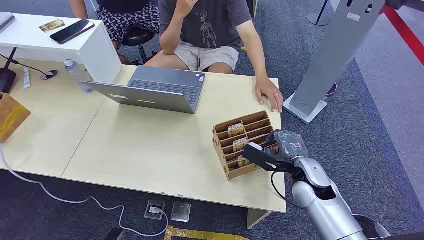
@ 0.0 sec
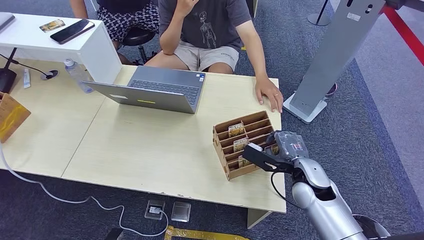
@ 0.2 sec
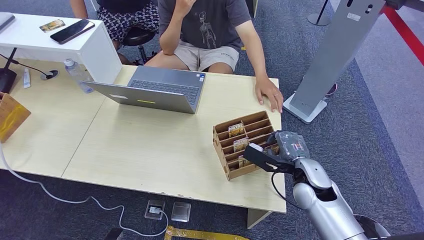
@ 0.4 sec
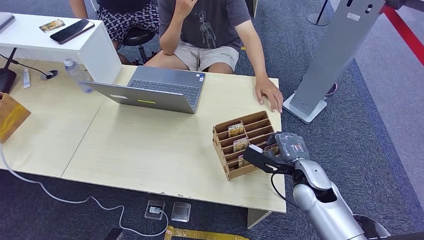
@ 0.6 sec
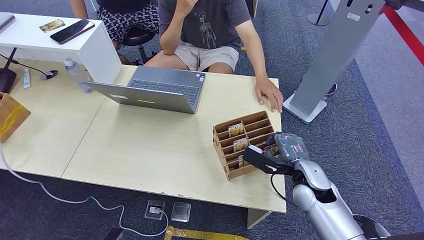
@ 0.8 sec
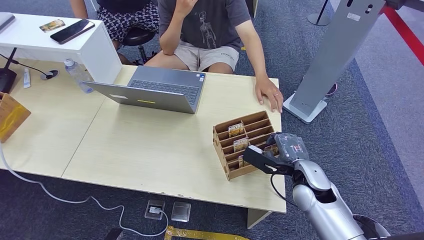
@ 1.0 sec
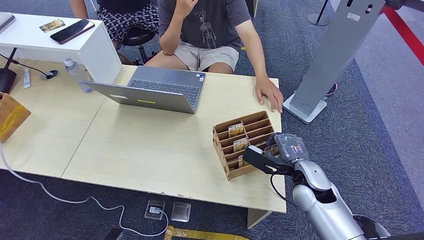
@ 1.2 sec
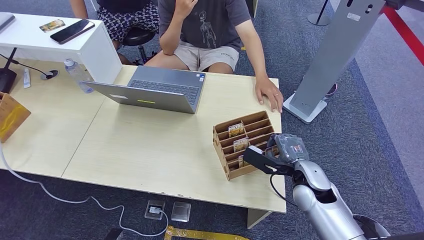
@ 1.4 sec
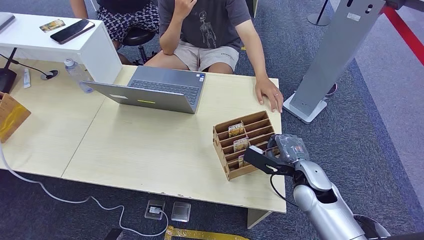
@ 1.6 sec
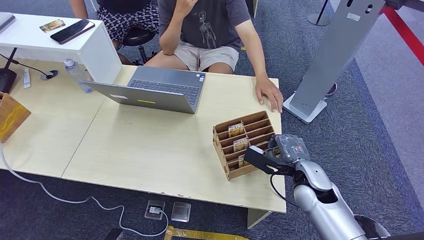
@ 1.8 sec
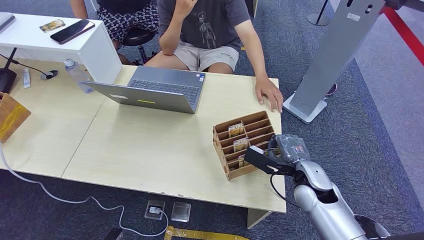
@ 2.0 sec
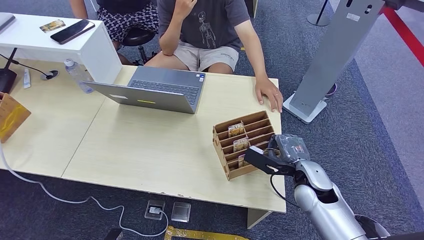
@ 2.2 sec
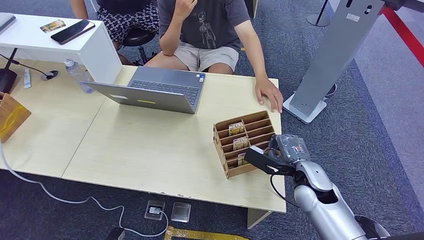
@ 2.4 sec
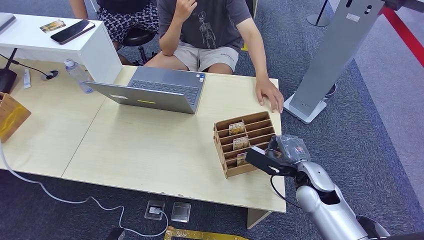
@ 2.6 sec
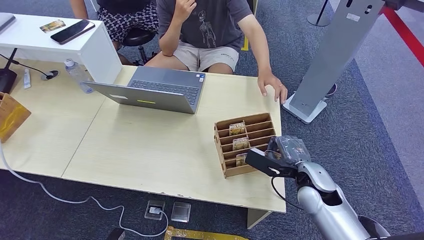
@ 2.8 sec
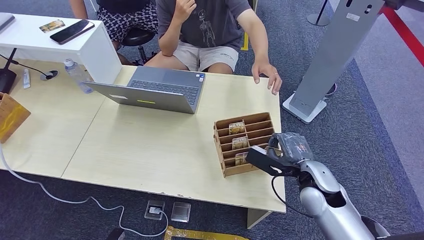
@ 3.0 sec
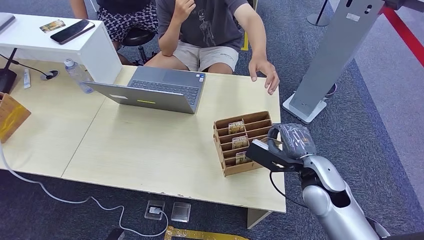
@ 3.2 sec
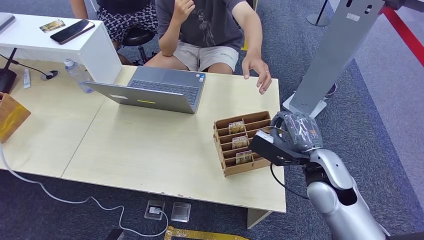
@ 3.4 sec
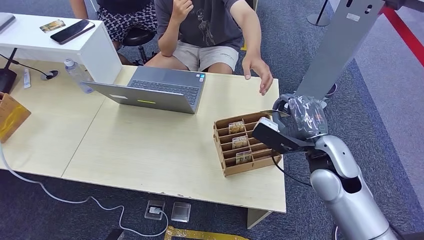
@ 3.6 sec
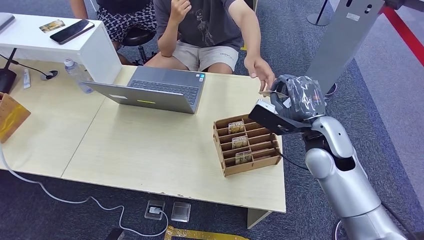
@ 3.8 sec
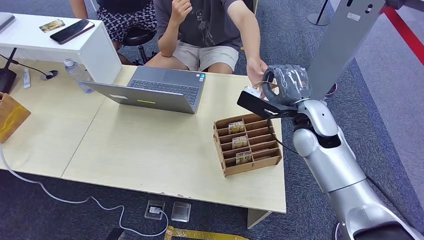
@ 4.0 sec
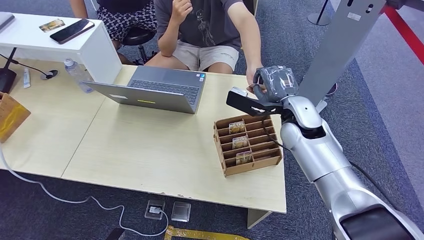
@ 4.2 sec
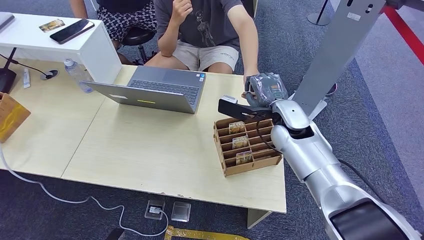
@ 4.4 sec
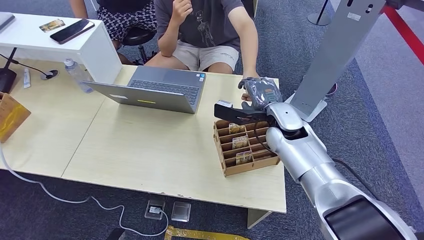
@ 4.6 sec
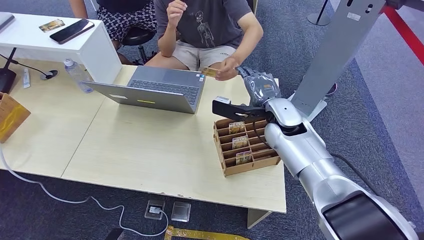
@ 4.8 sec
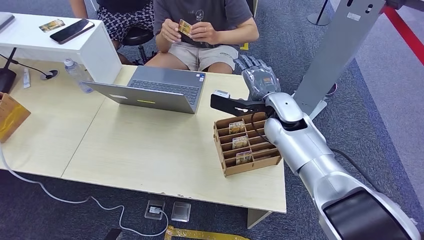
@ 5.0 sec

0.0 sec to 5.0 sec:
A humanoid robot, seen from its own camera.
Step, 0.0 sec to 3.4 sec: Pick up the key card from the card box.
Step, 3.8 sec to 5.0 sec: Hand the key card to the target.
1.6 sec to 3.4 sec: The right hand goes some 10 cm upward.
3.4 sec to 5.0 sec: The right hand travels forward and to the left by roughly 15 cm.

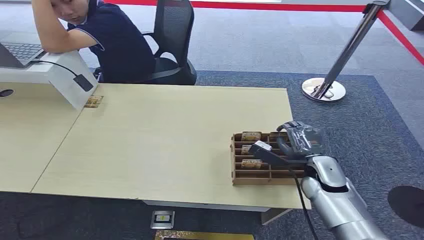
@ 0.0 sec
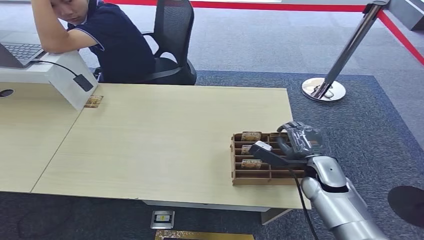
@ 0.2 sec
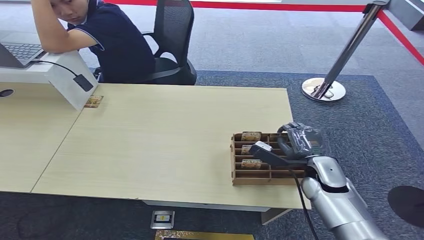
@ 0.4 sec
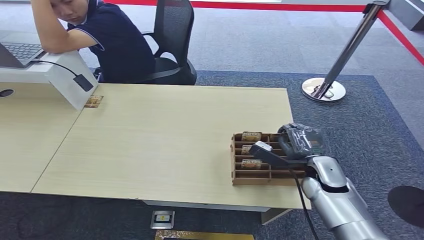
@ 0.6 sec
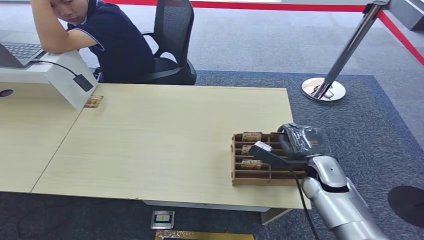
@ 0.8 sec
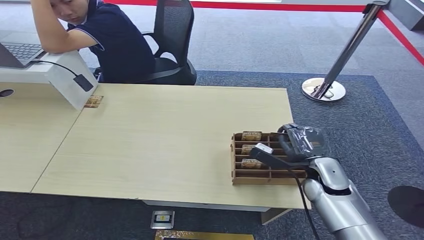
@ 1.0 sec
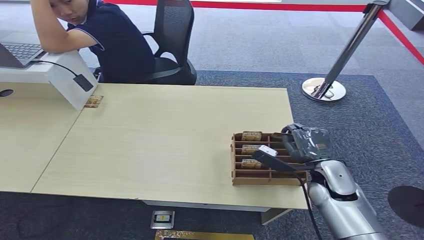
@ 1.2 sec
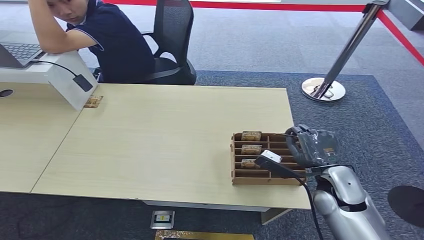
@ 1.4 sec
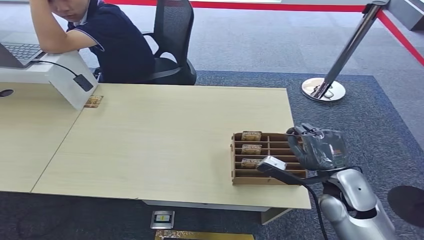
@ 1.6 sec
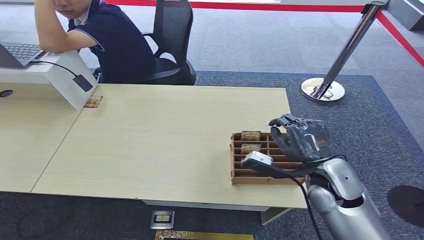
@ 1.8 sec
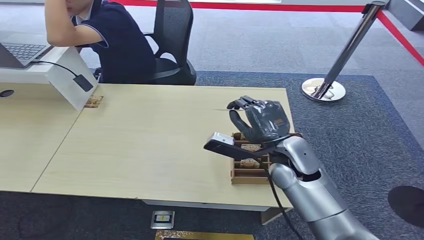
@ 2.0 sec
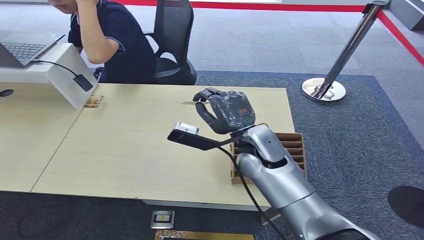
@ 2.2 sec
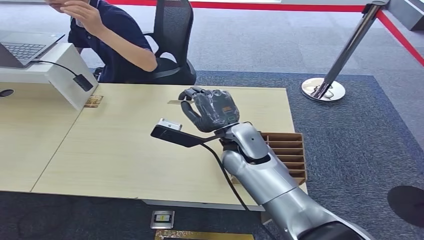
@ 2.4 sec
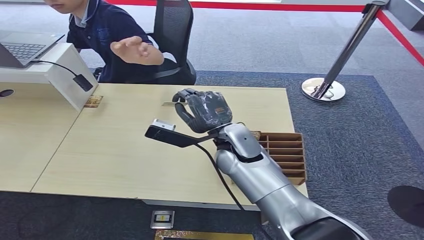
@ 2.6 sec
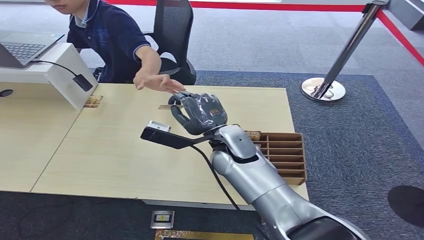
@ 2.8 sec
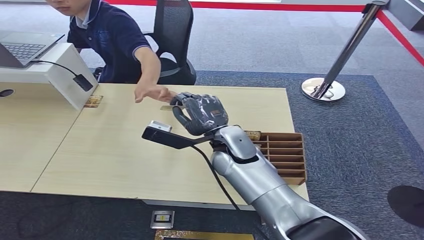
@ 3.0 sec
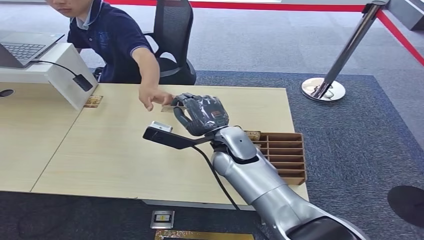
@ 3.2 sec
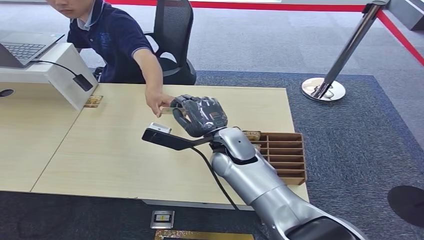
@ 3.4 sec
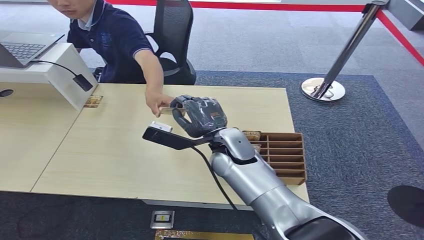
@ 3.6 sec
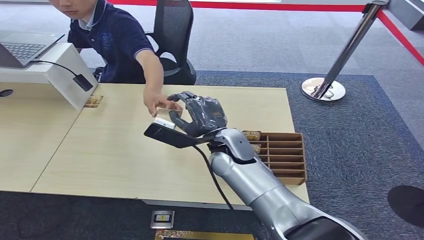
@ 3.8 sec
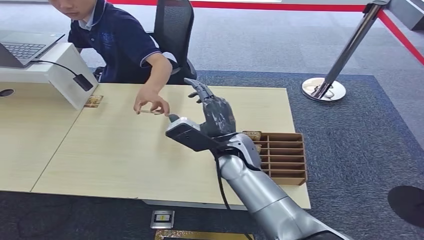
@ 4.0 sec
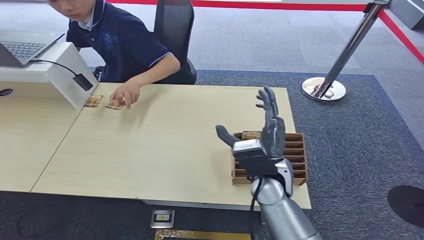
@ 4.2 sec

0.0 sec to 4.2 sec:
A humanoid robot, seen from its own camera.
Step, 0.0 sec to 2.0 sec: Pick up the key card from the card box.
Step, 2.2 sec to 4.2 sec: Hand the key card to the target.
1.4 sec to 2.8 sec: The right hand is displaced to the left by approximately 20 cm.
2.8 sec to 4.2 sec: The right hand travels backward and to the right by about 10 cm.
